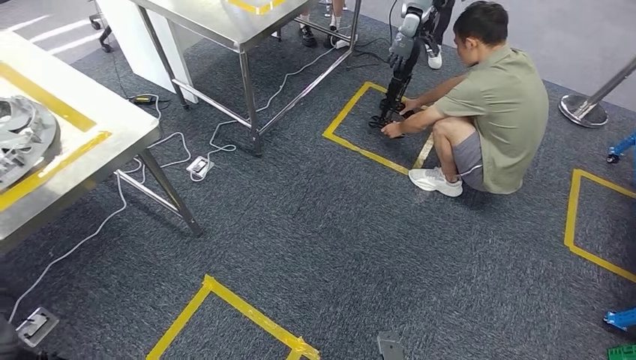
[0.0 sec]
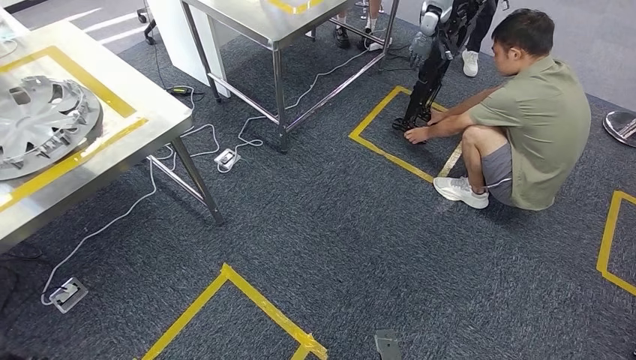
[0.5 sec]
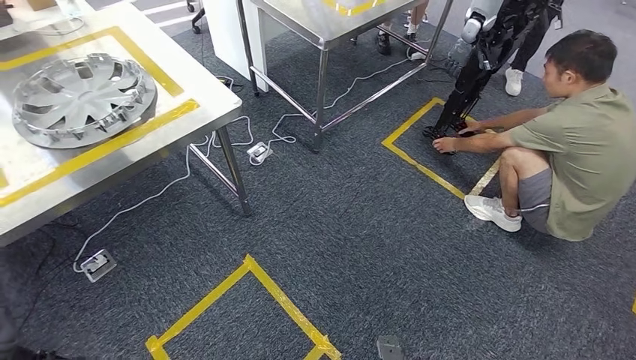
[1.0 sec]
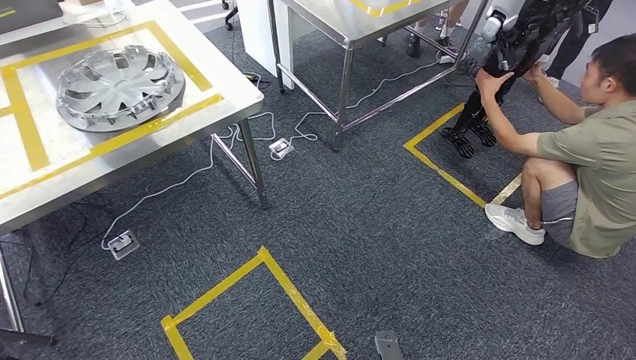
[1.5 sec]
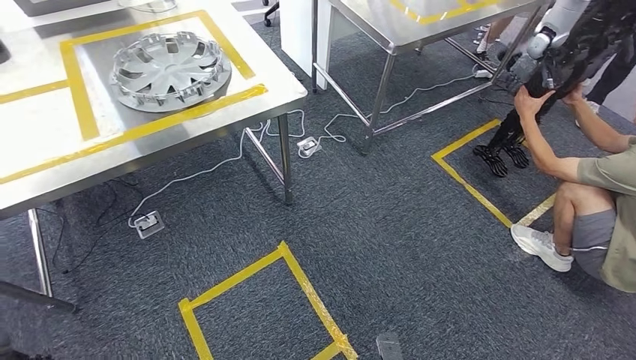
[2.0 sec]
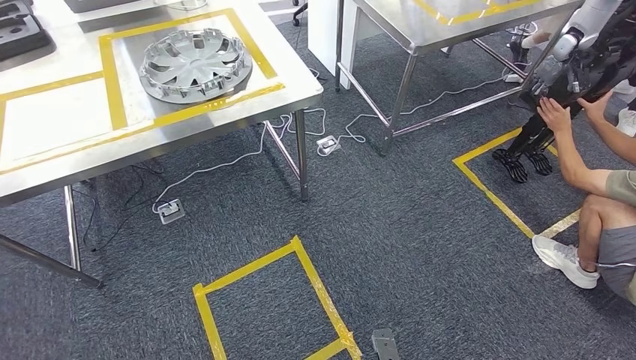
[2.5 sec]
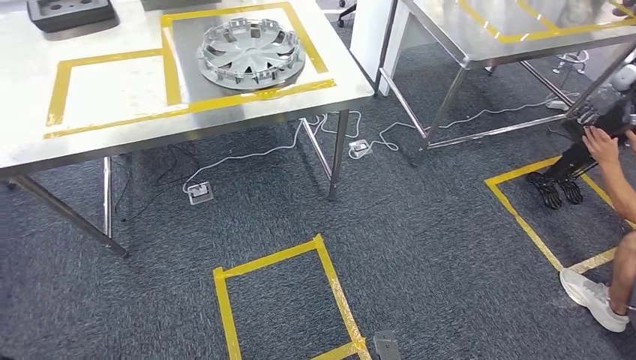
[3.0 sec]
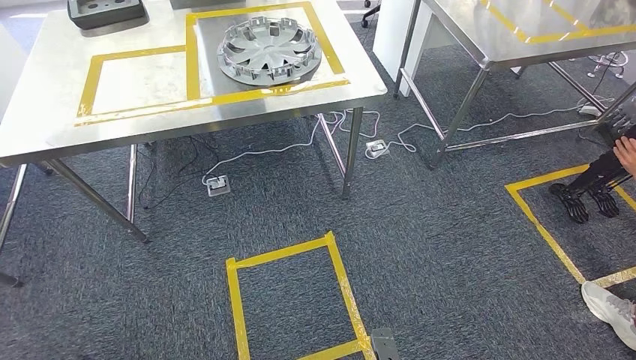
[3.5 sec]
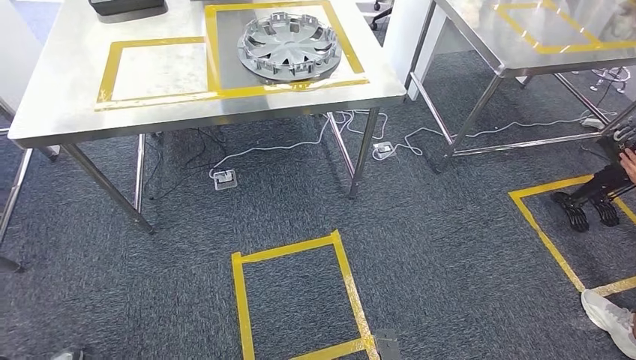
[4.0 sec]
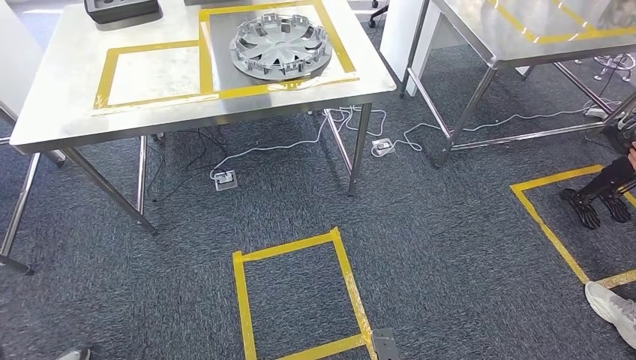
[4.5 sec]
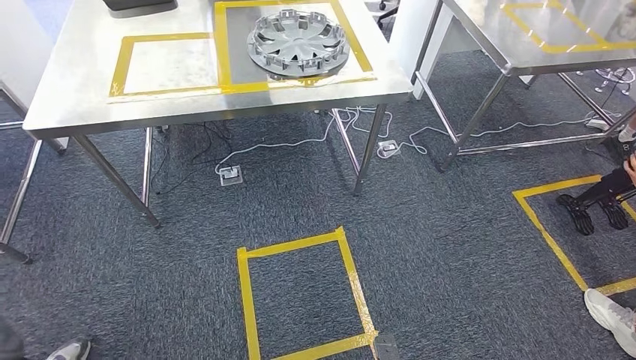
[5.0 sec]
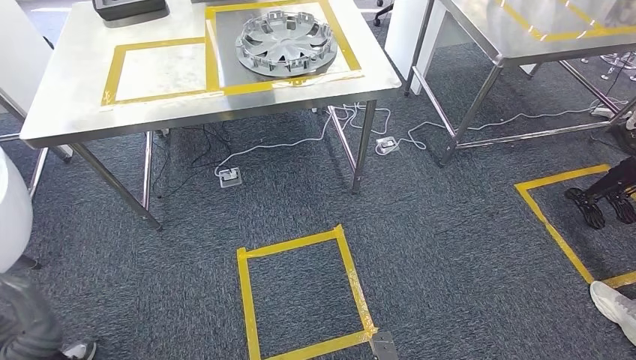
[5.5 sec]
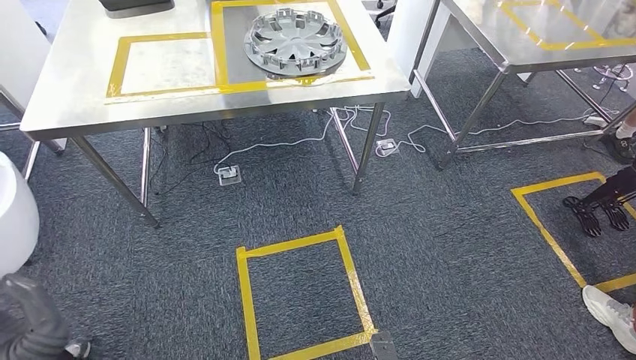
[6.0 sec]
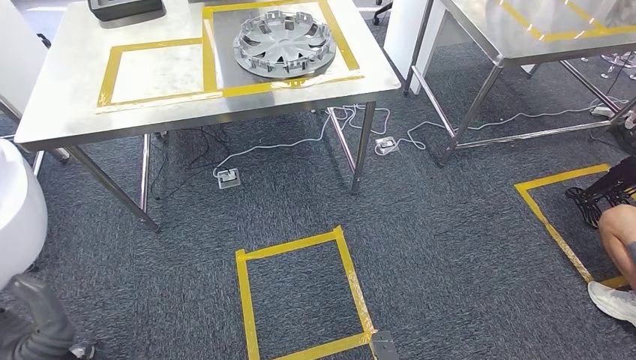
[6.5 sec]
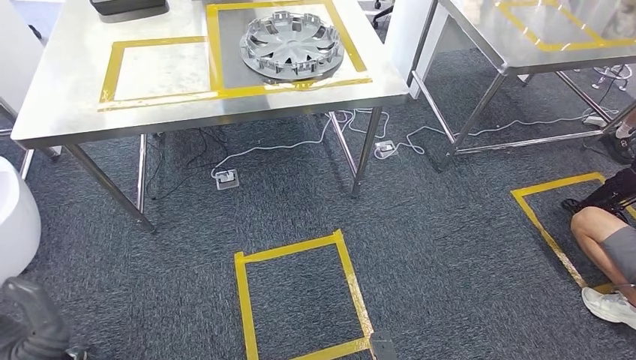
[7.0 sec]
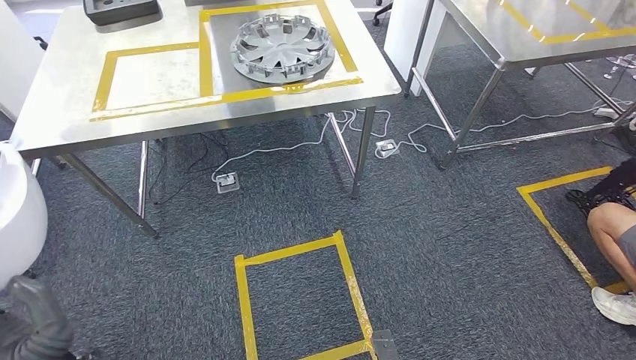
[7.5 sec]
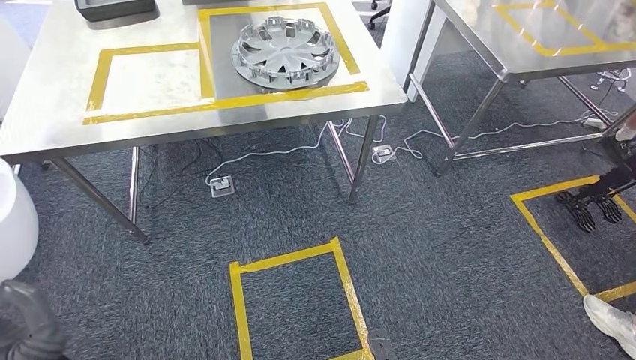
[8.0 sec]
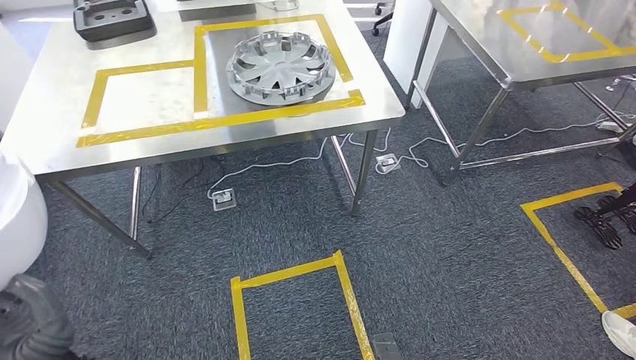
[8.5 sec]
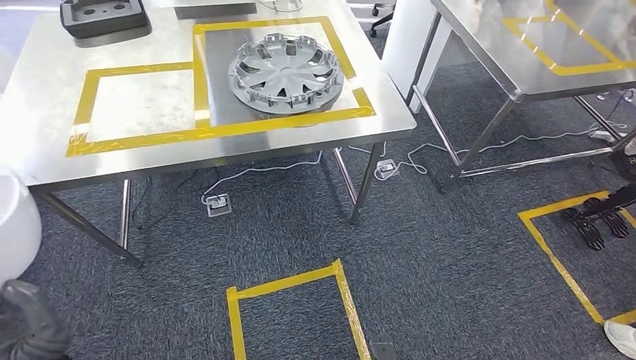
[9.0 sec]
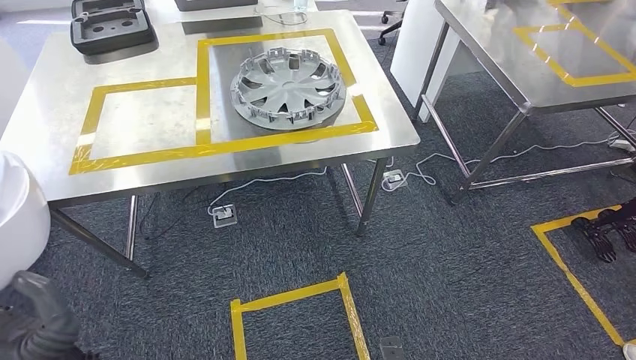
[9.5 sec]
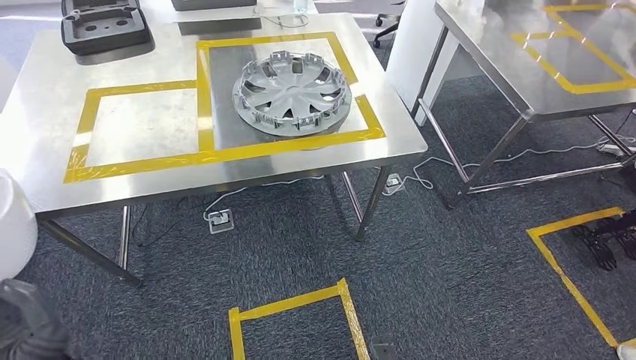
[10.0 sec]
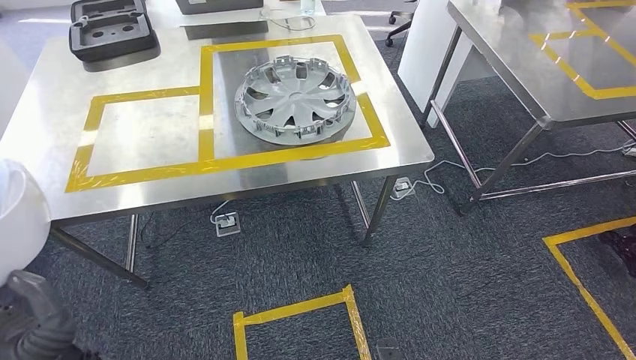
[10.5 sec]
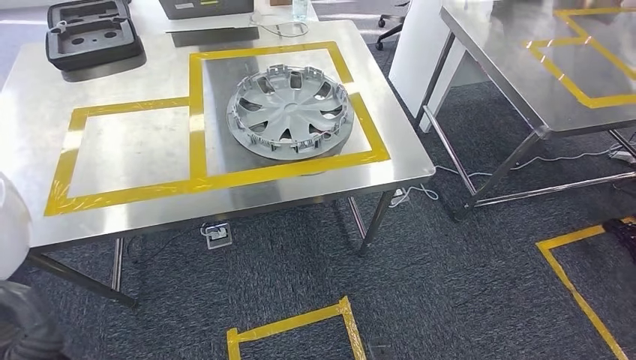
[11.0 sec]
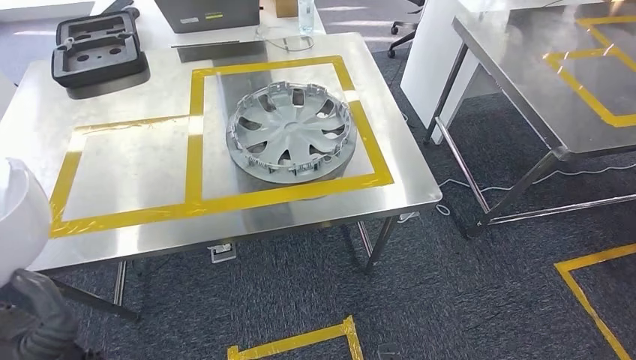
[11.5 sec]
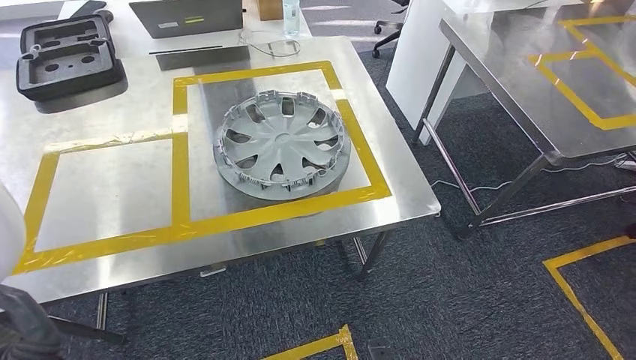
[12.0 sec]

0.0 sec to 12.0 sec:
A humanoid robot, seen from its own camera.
4.0 sec to 6.0 sec: The hands move only a little.

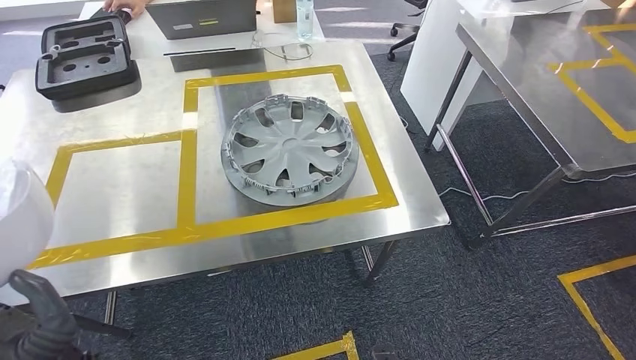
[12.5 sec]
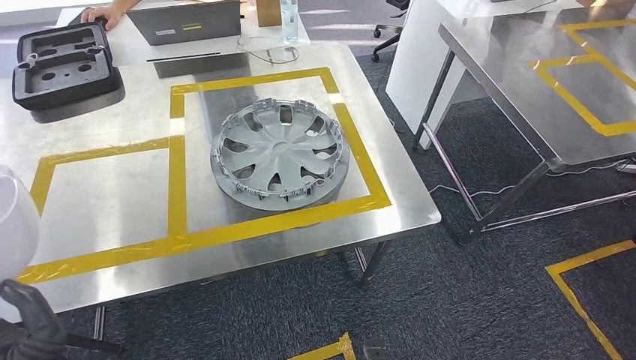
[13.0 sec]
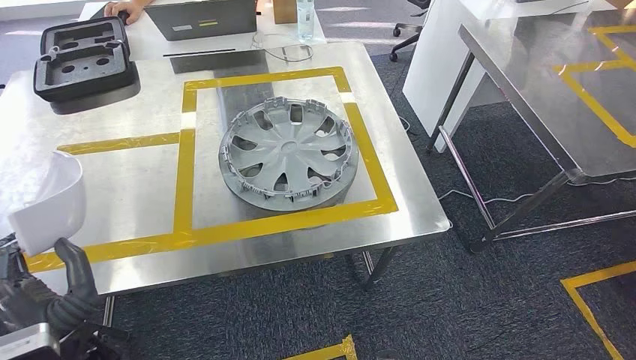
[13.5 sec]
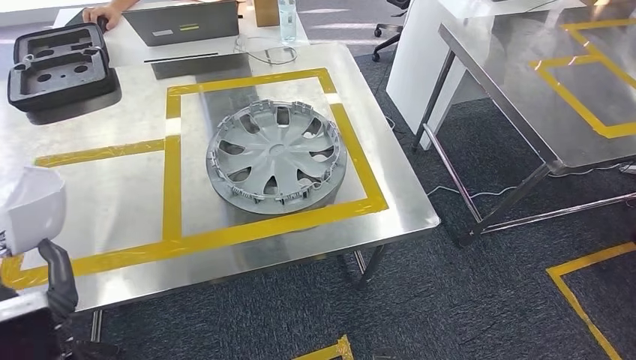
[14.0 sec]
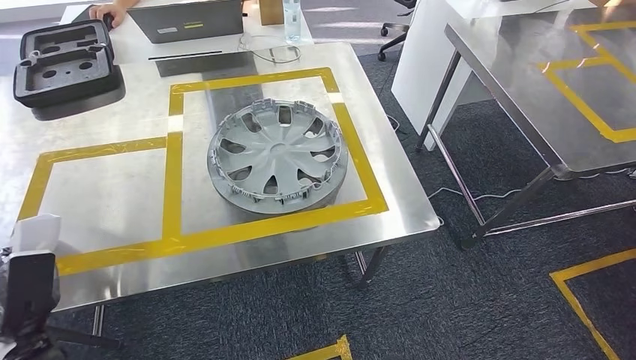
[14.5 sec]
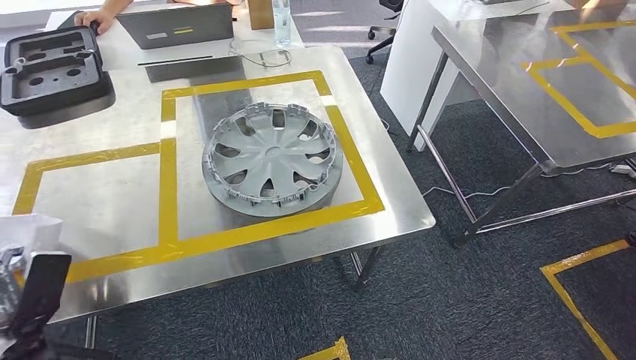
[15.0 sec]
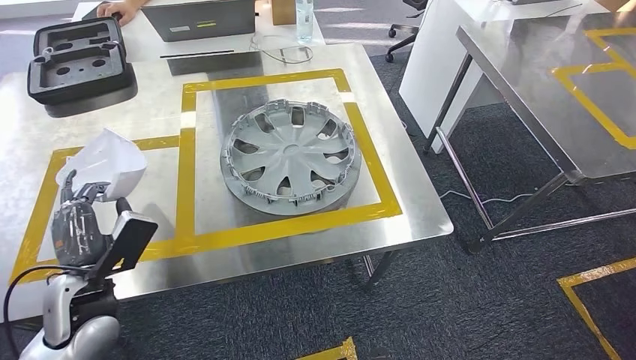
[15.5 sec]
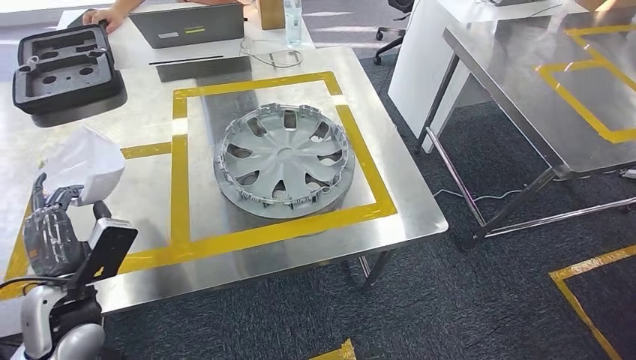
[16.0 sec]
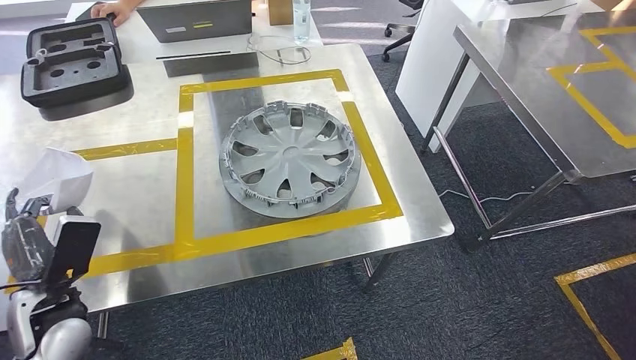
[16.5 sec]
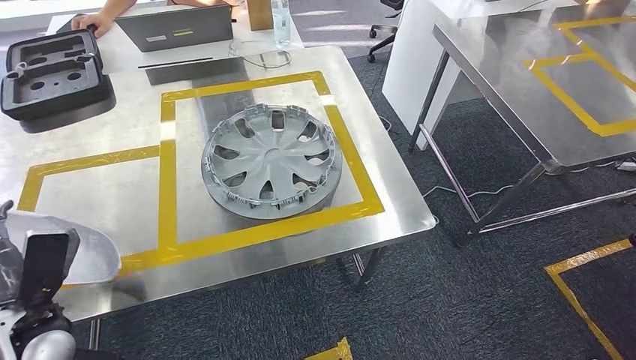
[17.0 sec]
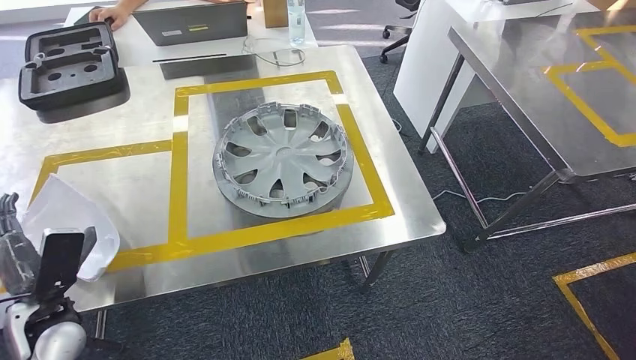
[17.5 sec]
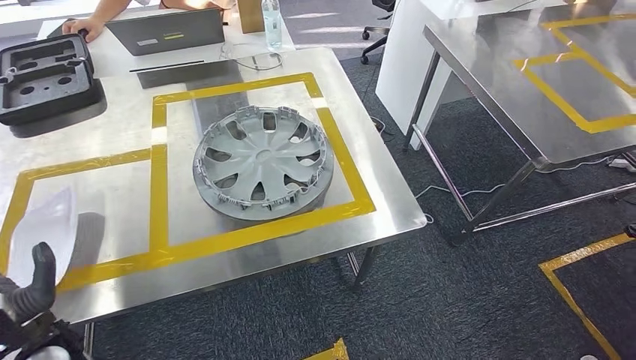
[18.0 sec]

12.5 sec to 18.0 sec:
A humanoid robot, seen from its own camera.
Step, 12.5 sec to 17.0 sec: Insert the small parts into the corresponding slots on the workbench.
Step, 17.5 sec to 18.0 sec: Return to the initial position at the workbench.

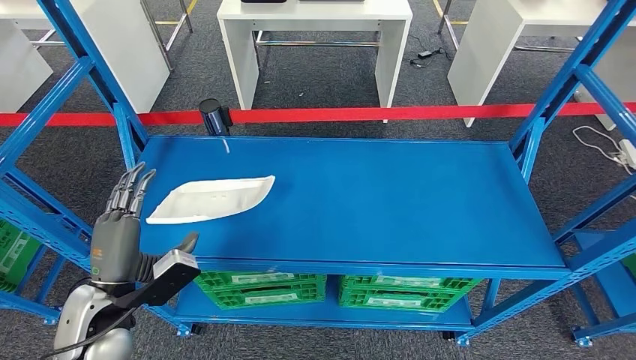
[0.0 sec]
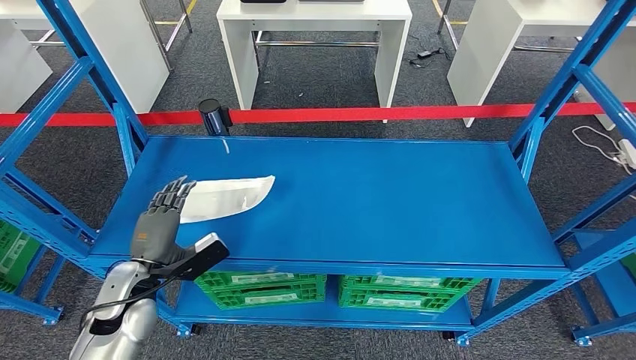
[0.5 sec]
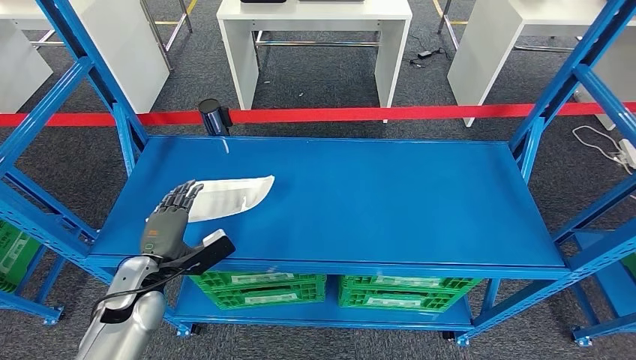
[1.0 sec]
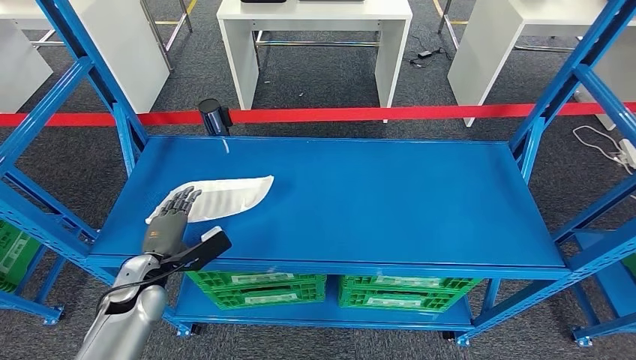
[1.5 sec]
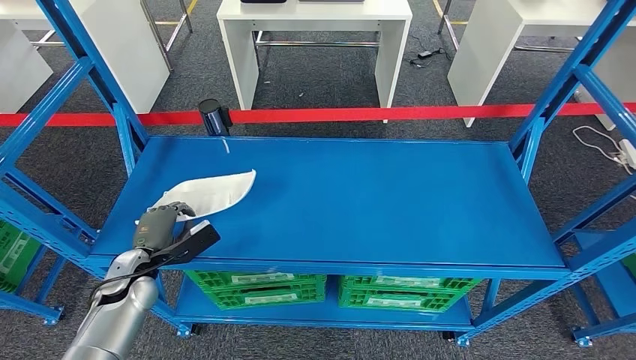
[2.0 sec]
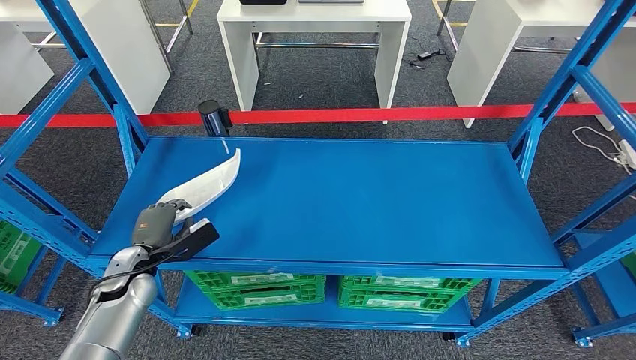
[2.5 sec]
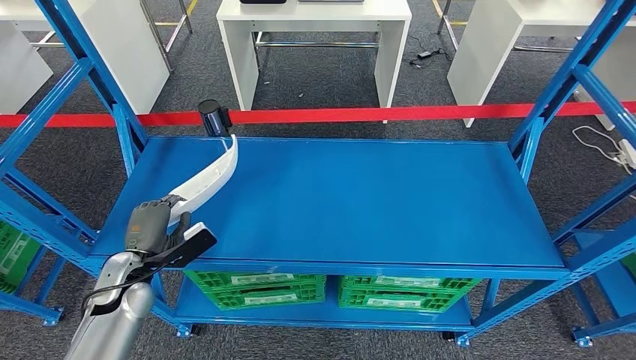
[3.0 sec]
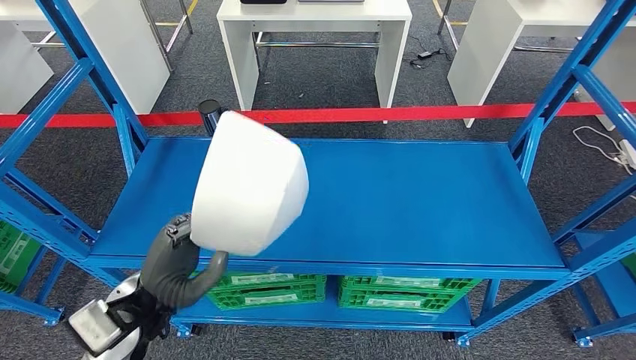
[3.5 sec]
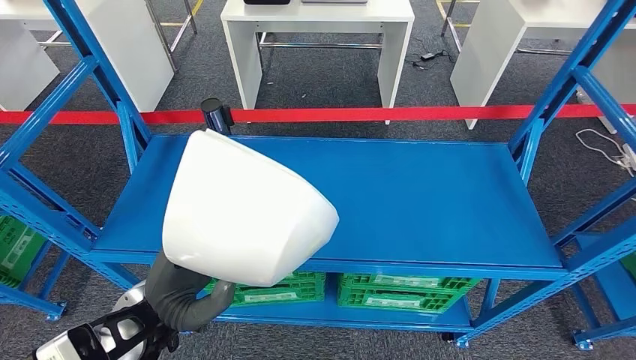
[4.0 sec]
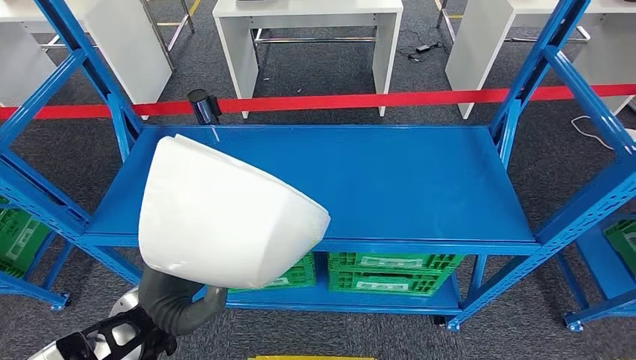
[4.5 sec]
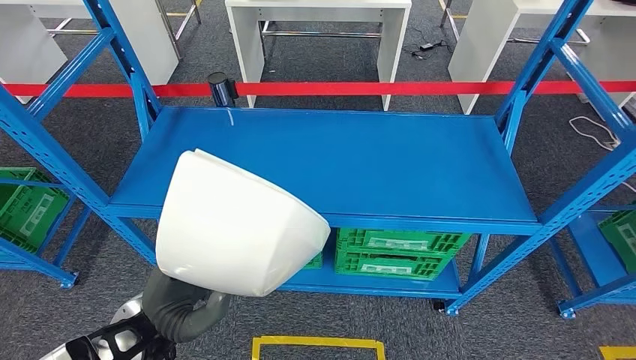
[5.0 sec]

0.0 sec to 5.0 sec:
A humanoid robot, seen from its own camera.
Step, 0.0 sec to 3.0 sec: Pick up the small parts from the shelf.
0.0 sec to 2.5 sec: The left hand heads downward and forward, covering about 15 cm.
